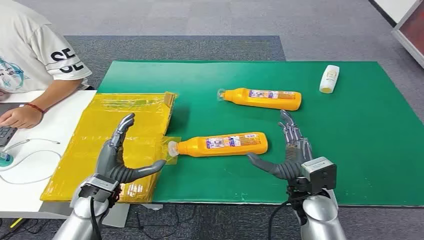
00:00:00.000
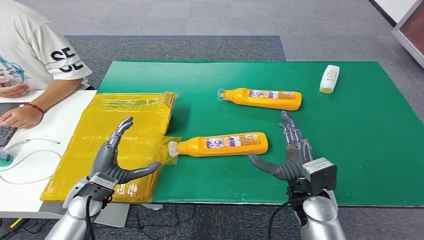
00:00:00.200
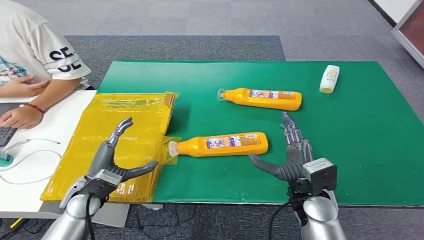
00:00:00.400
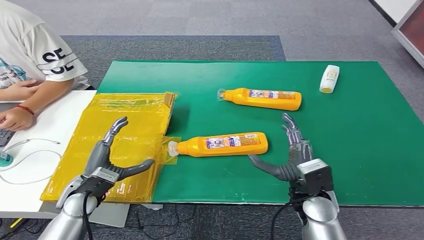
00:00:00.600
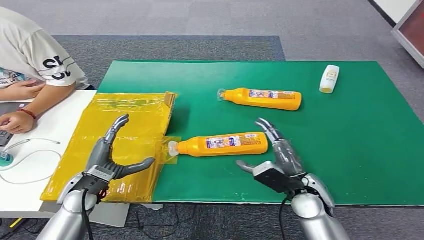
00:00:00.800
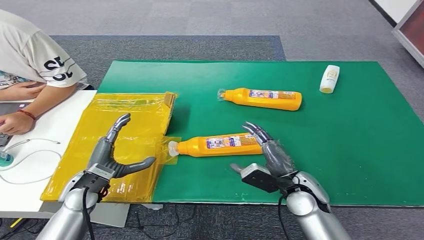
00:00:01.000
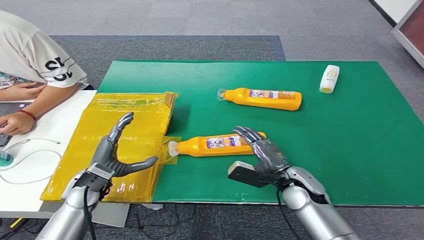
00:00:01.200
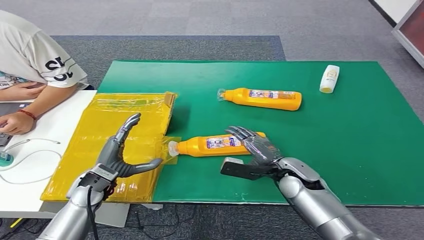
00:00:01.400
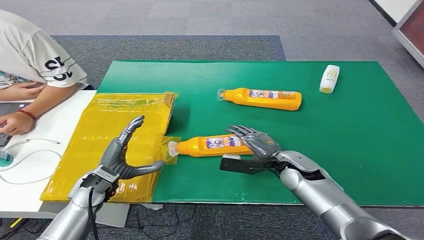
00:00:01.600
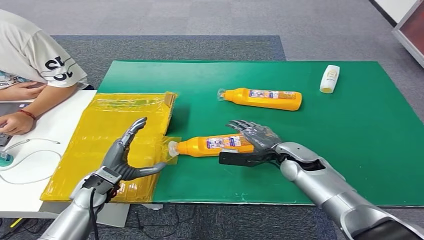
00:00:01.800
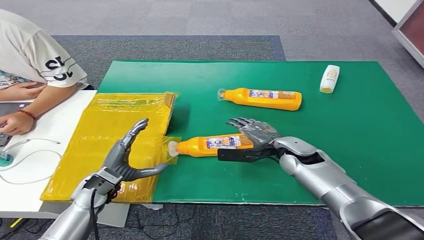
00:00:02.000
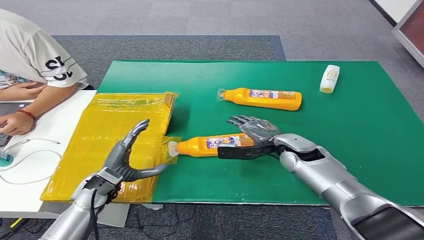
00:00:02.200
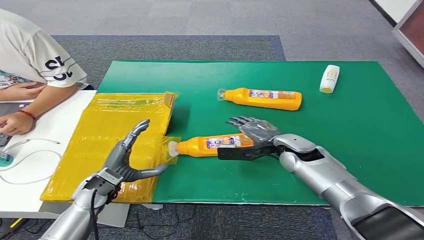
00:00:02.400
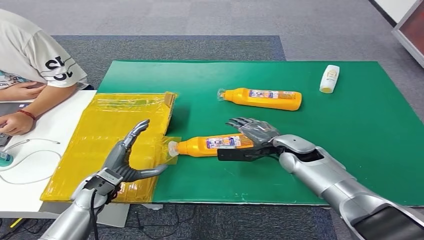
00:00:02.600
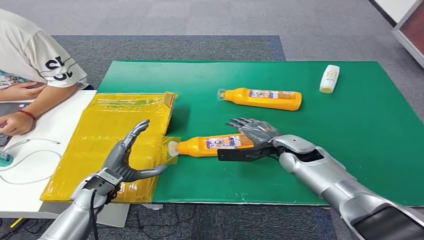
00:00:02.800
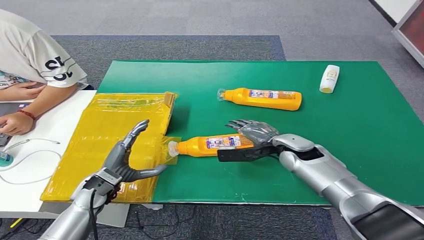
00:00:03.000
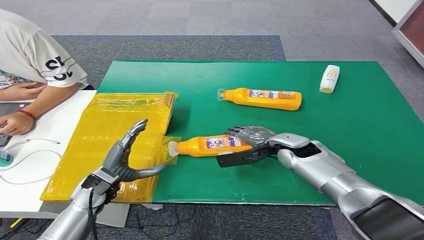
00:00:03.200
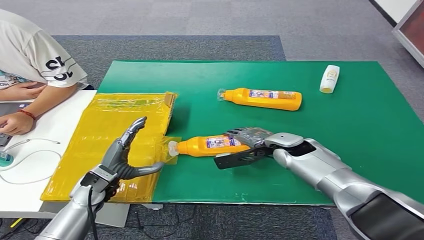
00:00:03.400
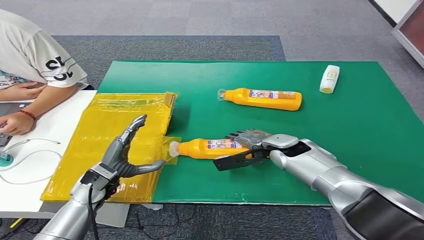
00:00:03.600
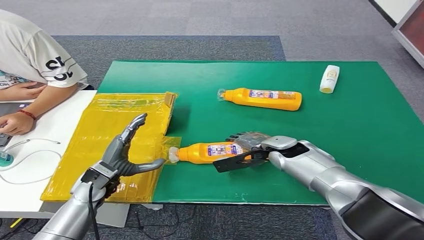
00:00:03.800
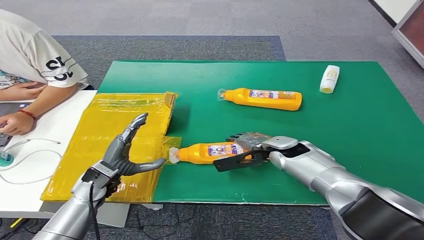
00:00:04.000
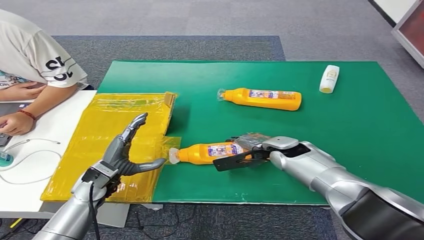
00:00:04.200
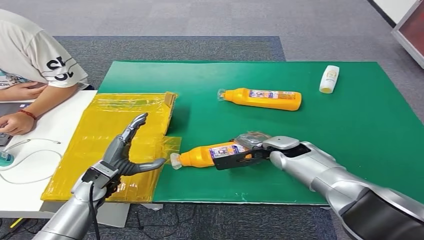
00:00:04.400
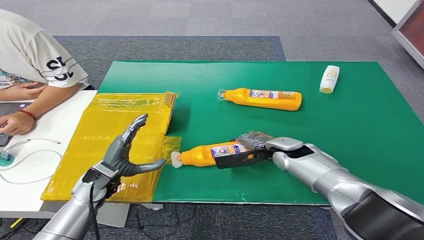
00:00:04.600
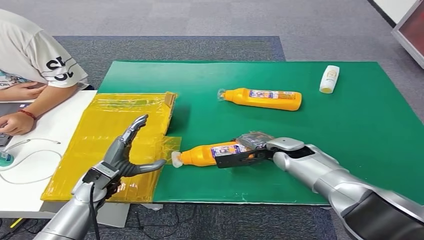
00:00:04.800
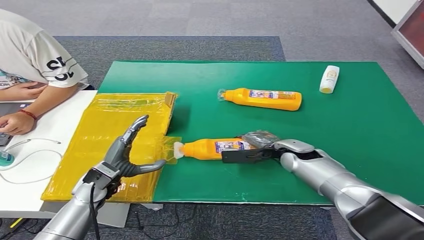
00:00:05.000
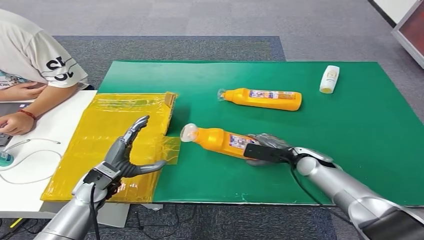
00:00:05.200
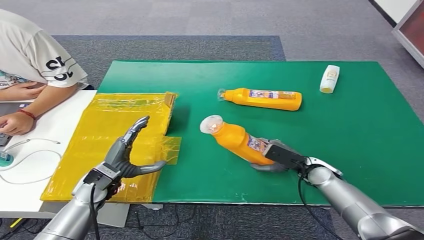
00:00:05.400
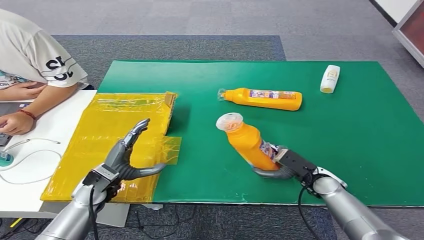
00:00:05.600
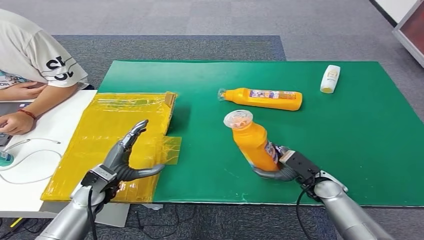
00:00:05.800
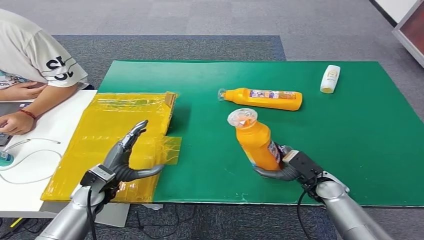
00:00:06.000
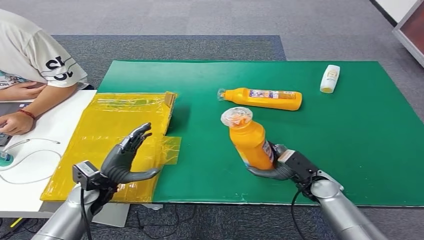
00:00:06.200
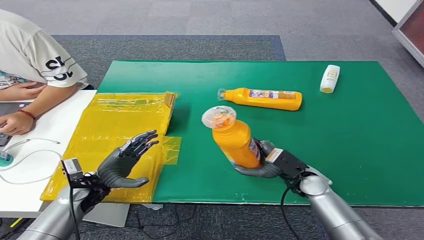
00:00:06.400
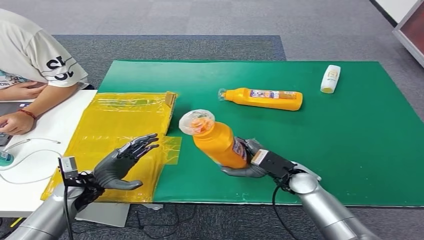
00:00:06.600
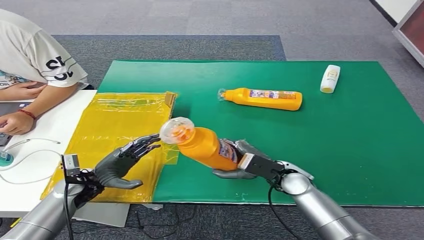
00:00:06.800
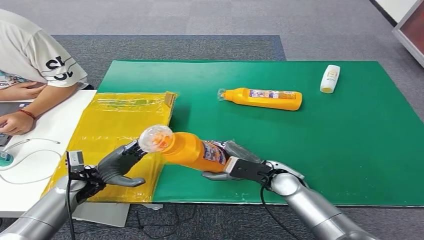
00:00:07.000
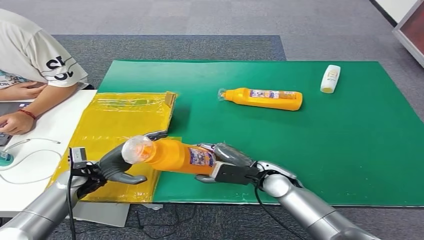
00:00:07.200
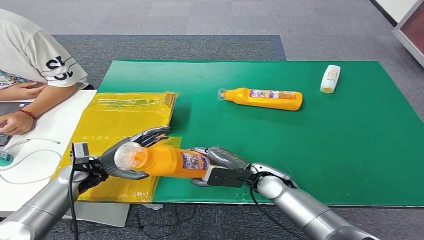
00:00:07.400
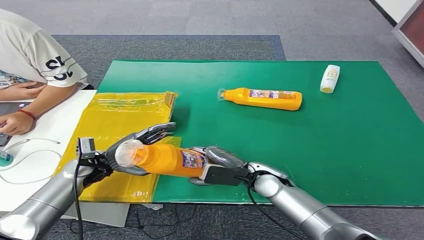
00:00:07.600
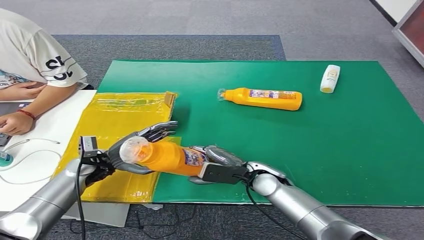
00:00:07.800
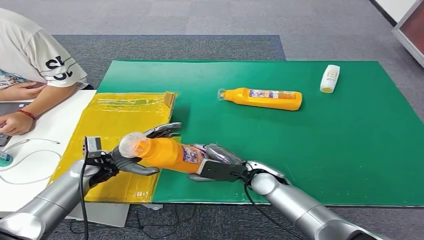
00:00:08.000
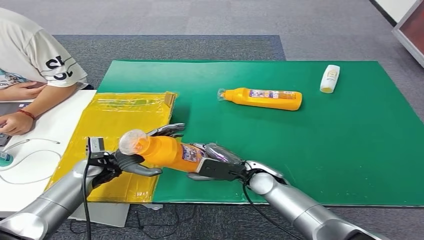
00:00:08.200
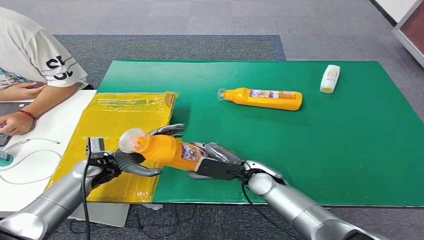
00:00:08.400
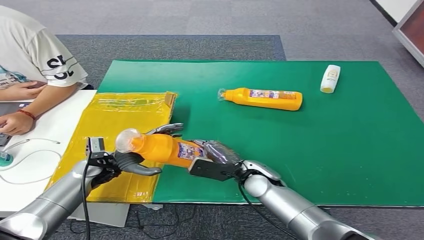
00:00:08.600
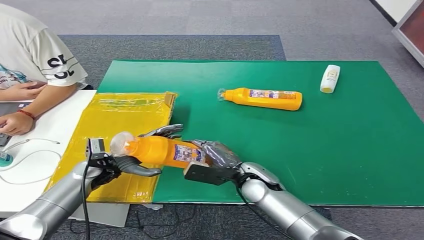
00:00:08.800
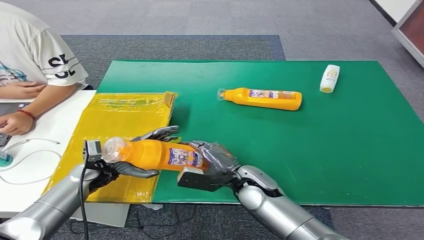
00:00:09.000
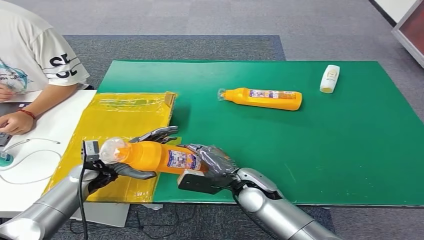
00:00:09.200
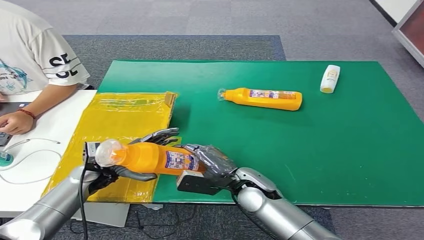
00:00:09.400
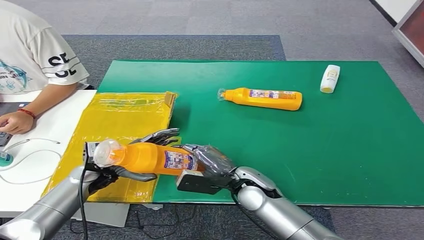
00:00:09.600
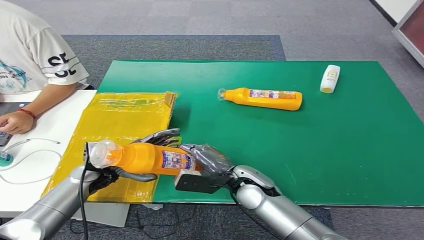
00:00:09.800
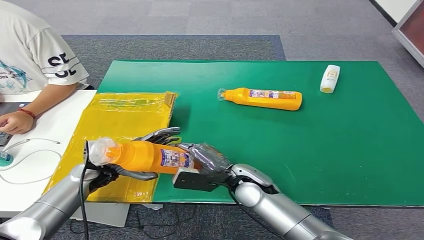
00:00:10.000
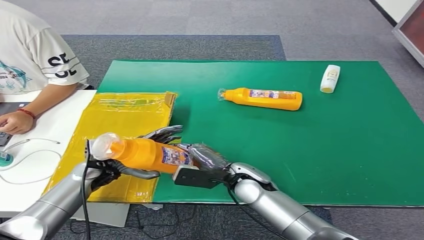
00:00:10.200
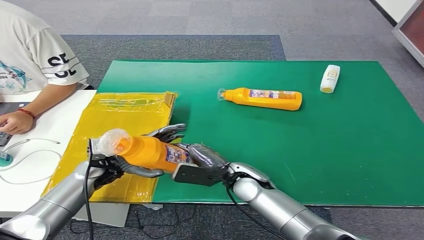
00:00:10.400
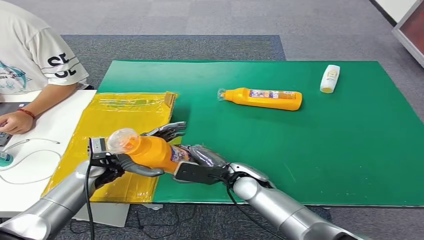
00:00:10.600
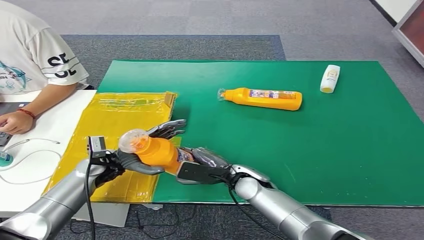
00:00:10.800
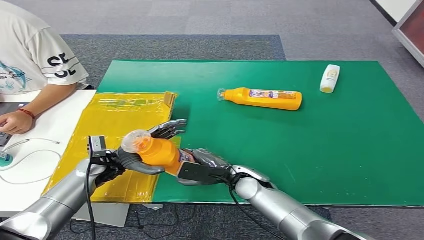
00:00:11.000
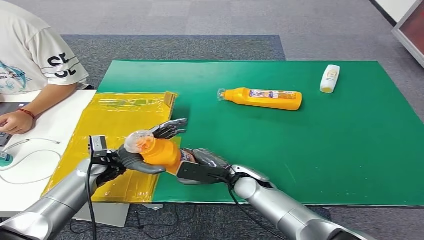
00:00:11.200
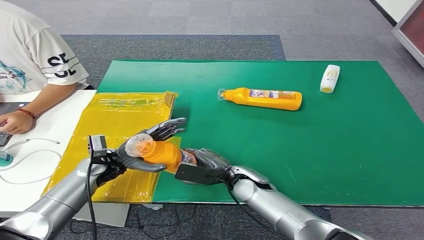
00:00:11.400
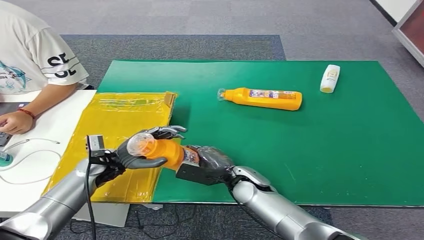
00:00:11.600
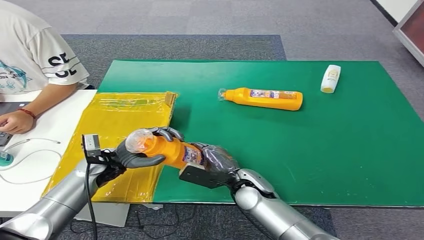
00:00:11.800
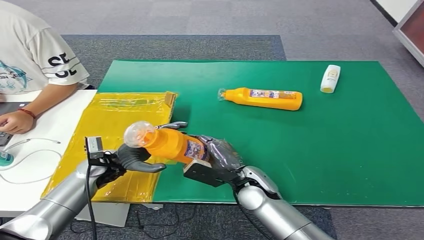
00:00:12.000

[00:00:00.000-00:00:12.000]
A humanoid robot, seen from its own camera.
Step, 00:00:00.000 to 00:00:05.800: Pick up the bottle from the table.
00:00:01.600 to 00:00:03.000: The right hand moves approximately 5 cm.
00:00:04.400 to 00:00:06.000: The right hand shifts approximately 15 cm backward, to the right and downward.
00:00:06.000 to 00:00:07.600: The left hand goes some 5 cm forward. Meanwhile the right hand travels to the left by about 15 cm.
00:00:07.600 to 00:00:10.400: The hands make only small movements.

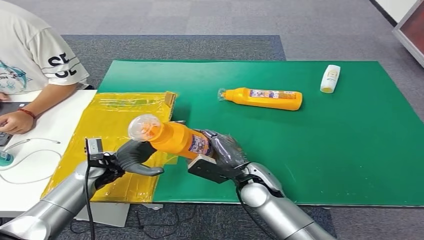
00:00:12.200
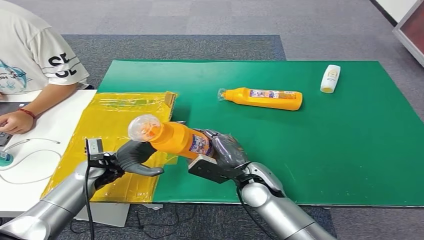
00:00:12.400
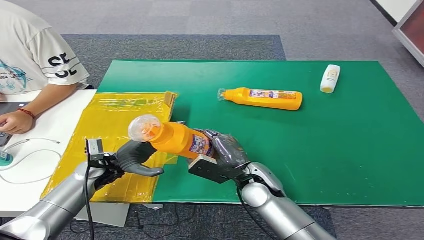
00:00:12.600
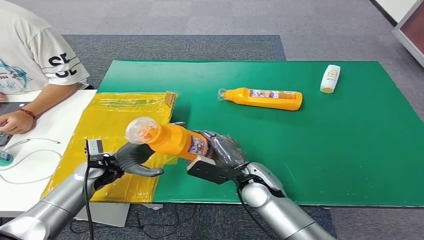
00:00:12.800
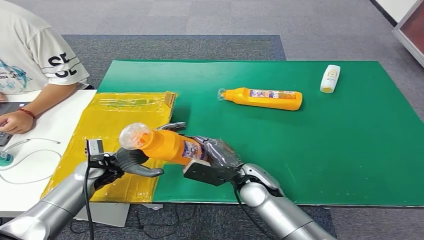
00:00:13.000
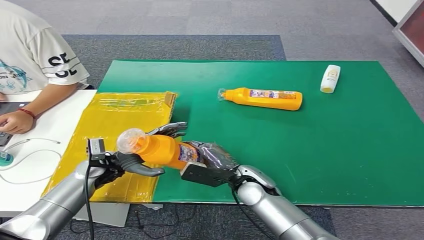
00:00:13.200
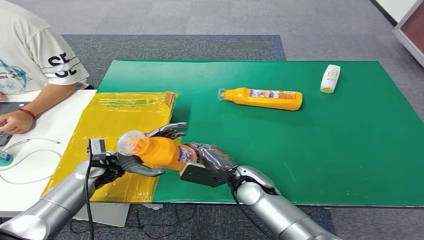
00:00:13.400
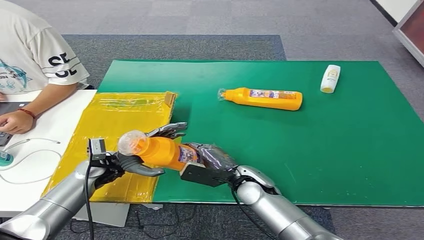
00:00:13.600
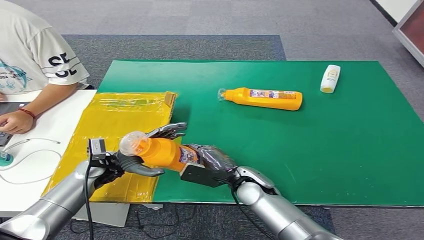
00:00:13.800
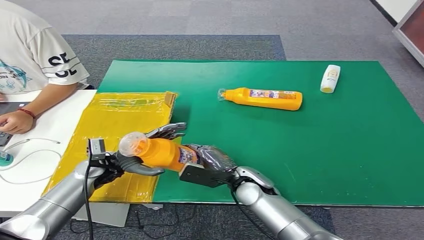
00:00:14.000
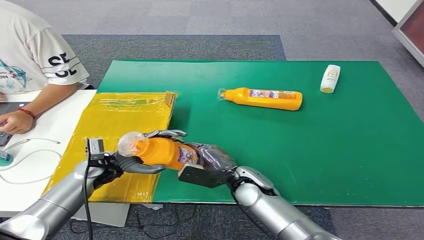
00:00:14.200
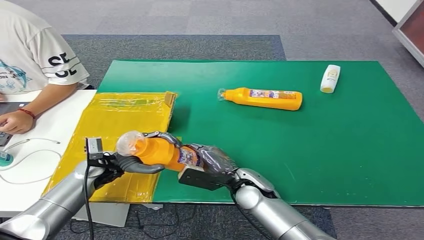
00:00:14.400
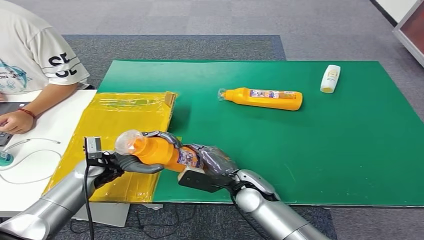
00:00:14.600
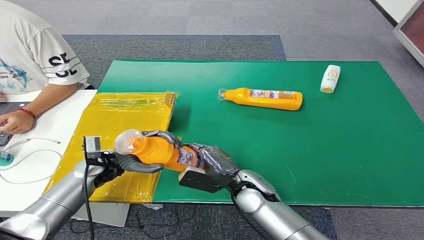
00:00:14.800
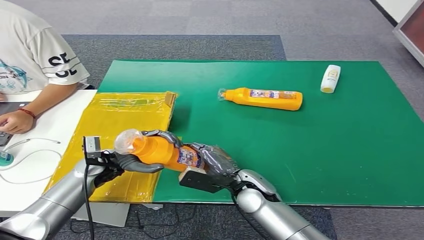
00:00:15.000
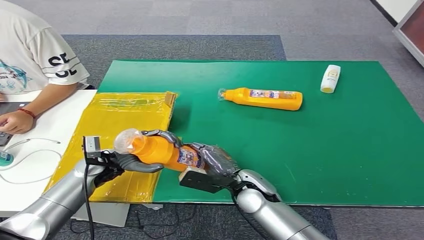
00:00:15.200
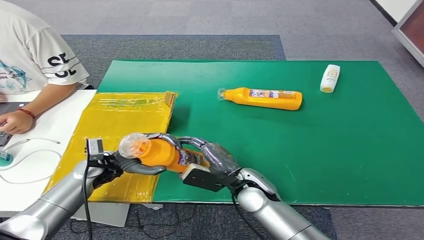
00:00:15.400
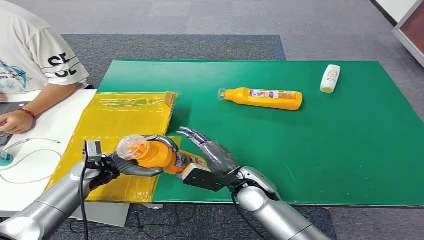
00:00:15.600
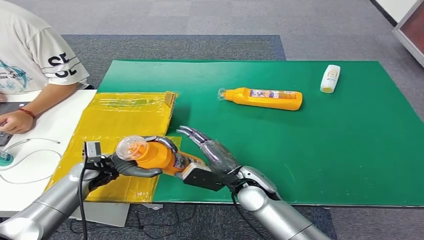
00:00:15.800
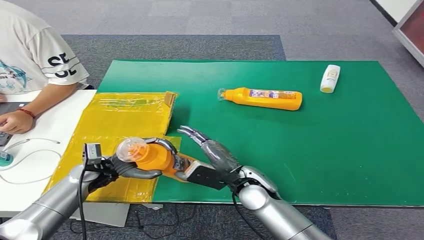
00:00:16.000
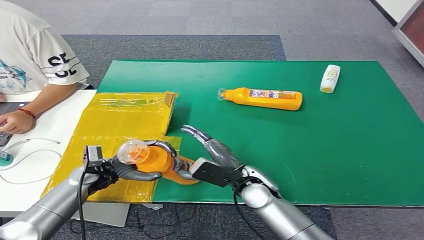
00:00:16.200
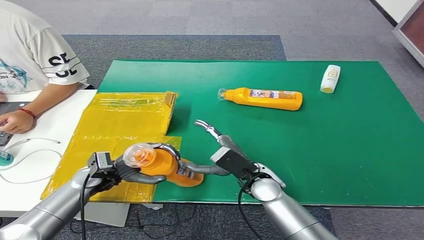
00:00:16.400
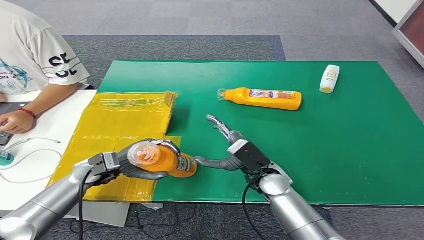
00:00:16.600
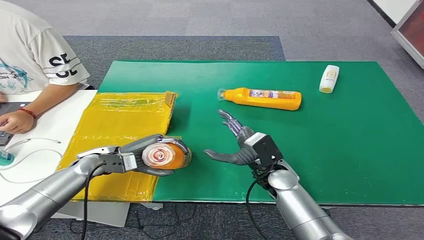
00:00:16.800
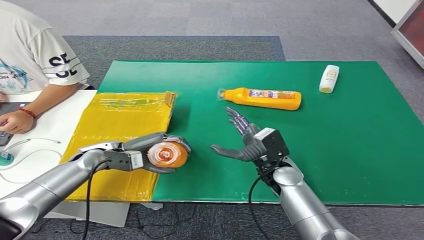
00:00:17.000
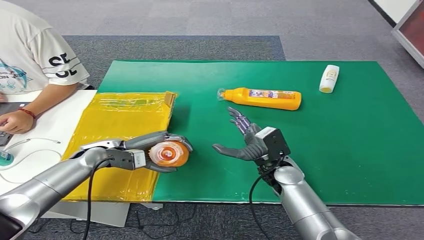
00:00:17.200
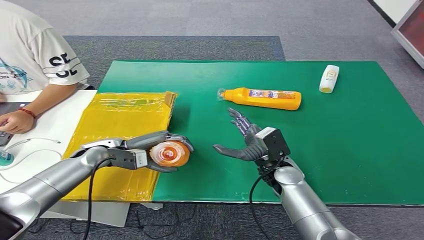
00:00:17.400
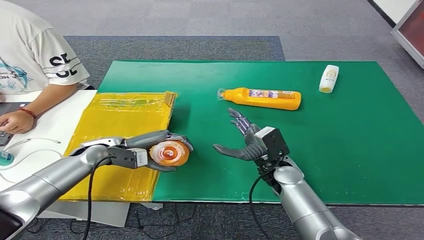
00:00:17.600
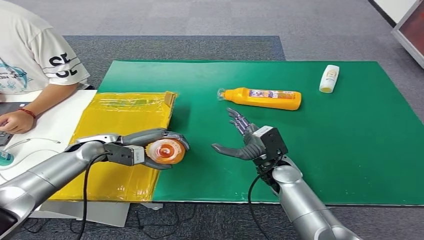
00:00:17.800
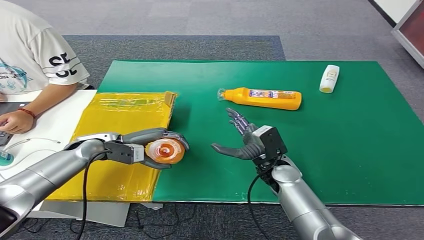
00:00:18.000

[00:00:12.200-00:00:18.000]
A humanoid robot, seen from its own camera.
00:00:12.200 to 00:00:15.000: The hands move only a little.
00:00:16.600 to 00:00:18.000: The left hand goes roughly 10 cm forward and upward.
